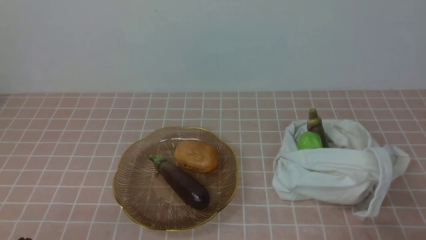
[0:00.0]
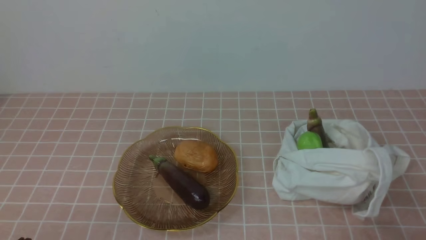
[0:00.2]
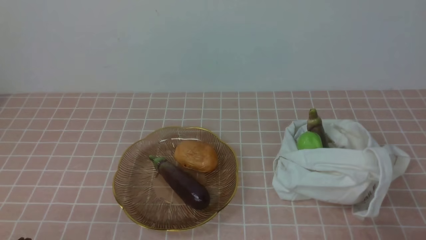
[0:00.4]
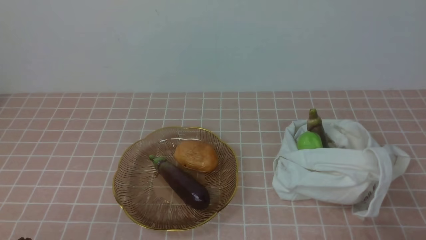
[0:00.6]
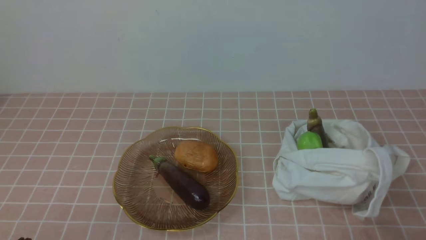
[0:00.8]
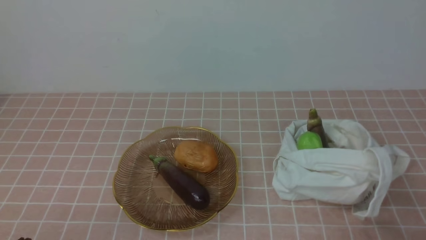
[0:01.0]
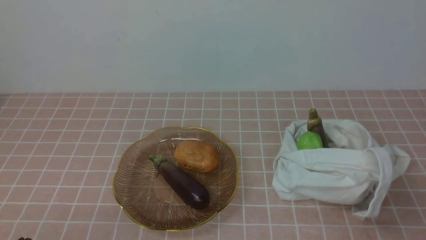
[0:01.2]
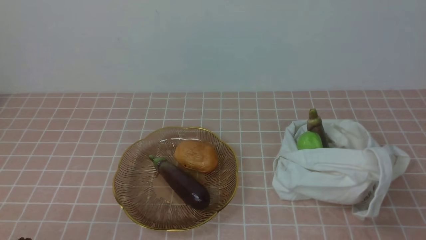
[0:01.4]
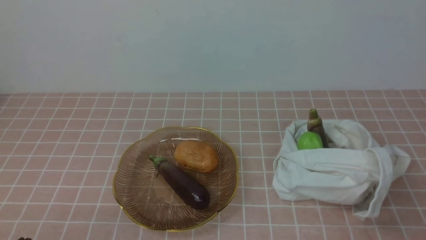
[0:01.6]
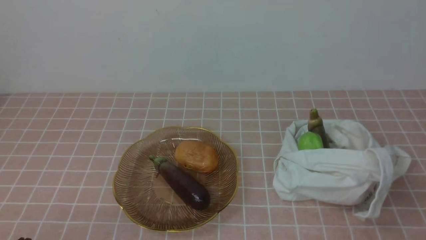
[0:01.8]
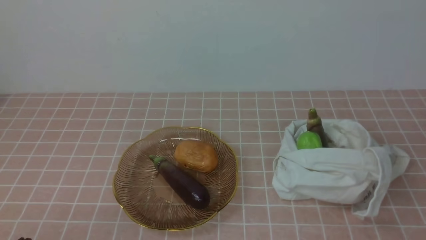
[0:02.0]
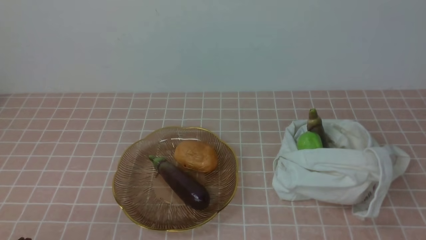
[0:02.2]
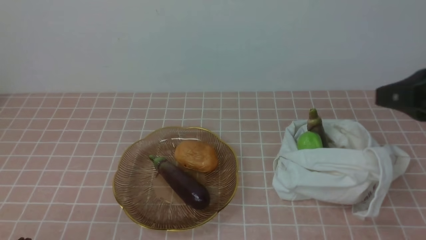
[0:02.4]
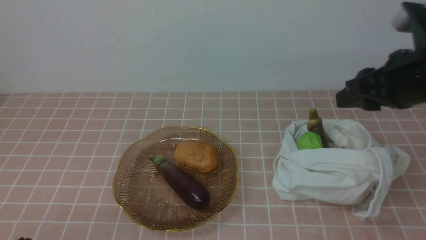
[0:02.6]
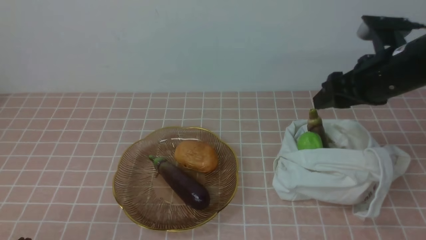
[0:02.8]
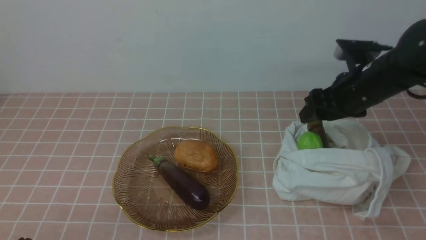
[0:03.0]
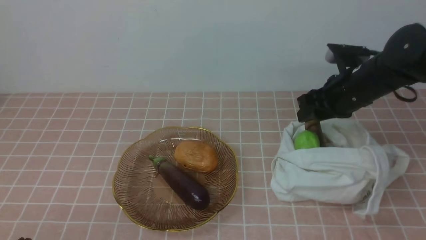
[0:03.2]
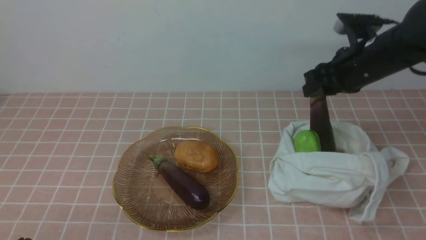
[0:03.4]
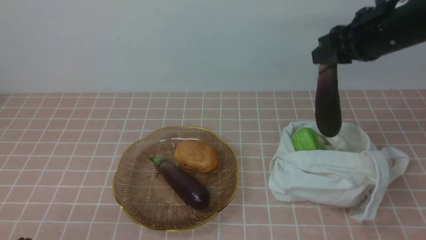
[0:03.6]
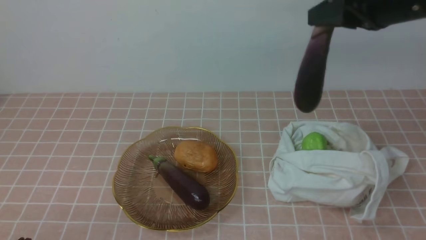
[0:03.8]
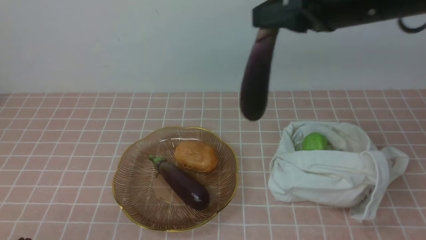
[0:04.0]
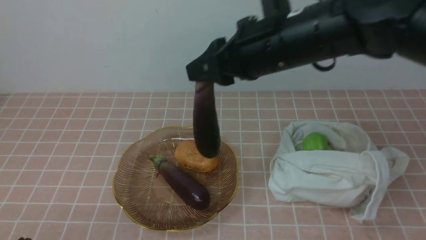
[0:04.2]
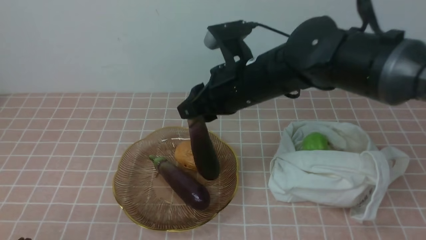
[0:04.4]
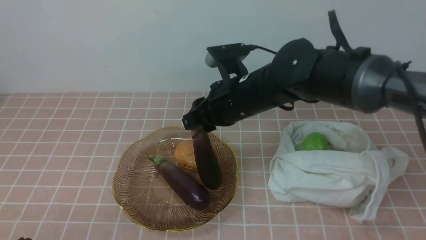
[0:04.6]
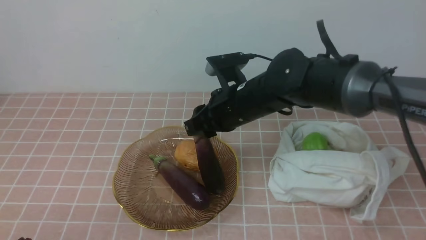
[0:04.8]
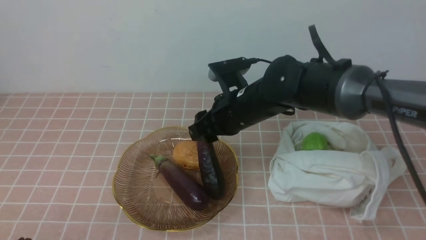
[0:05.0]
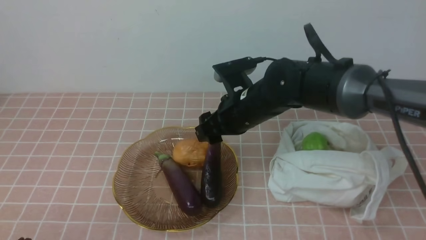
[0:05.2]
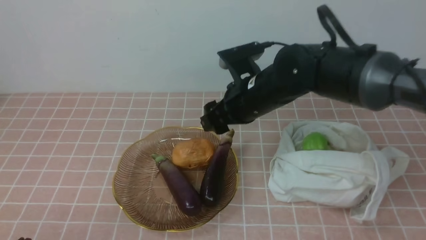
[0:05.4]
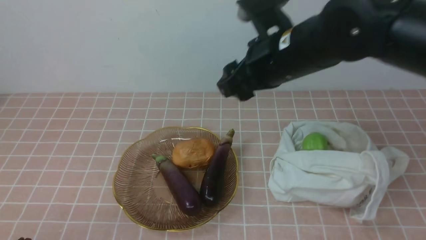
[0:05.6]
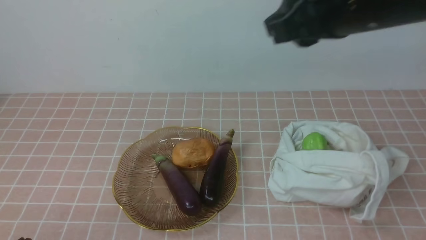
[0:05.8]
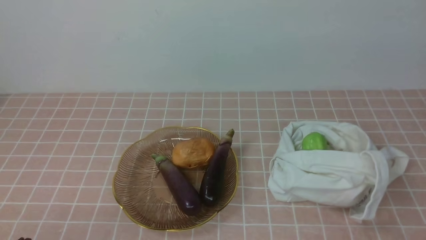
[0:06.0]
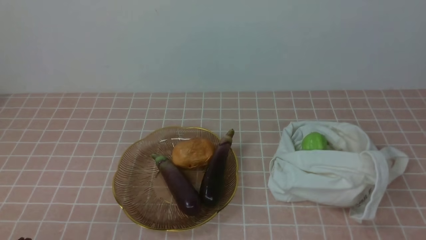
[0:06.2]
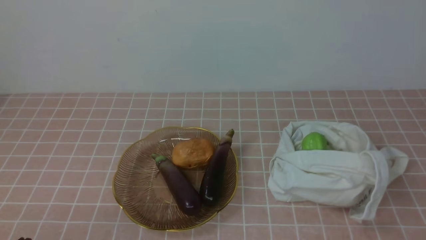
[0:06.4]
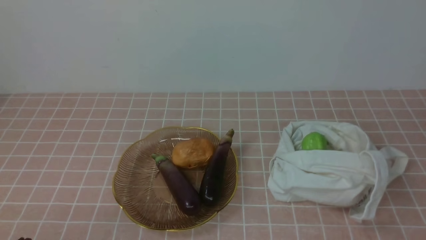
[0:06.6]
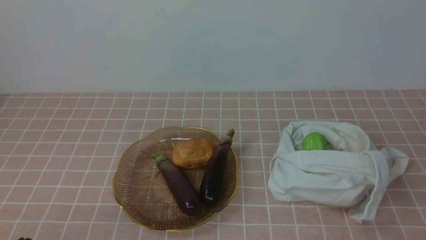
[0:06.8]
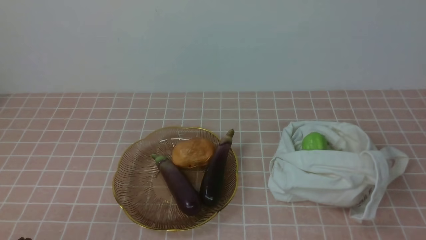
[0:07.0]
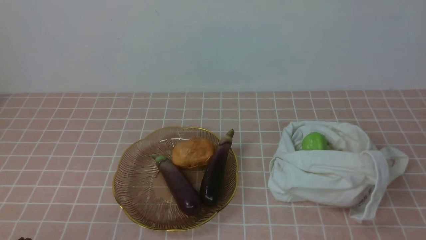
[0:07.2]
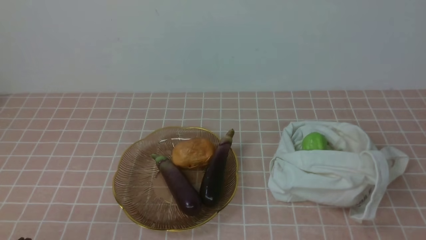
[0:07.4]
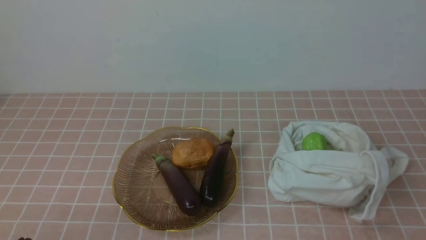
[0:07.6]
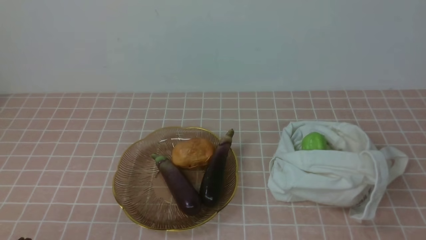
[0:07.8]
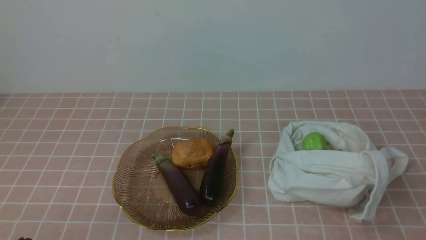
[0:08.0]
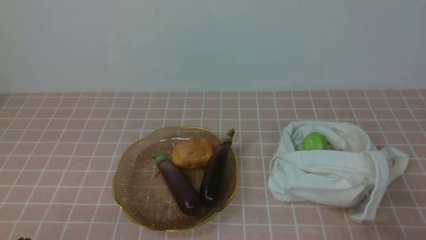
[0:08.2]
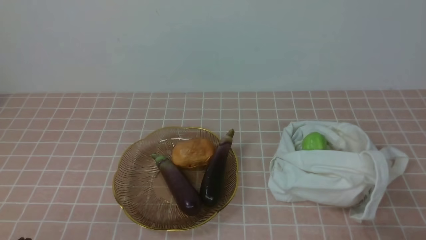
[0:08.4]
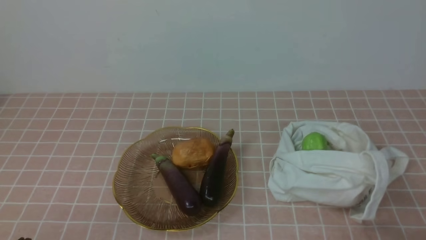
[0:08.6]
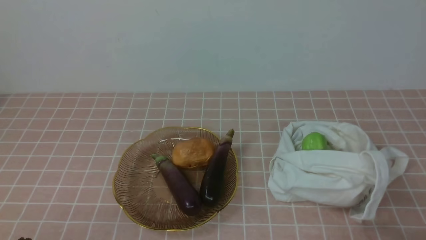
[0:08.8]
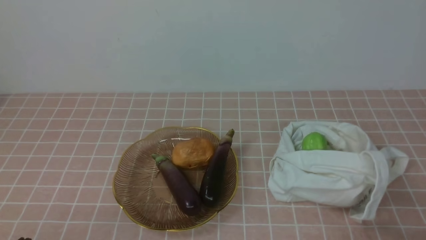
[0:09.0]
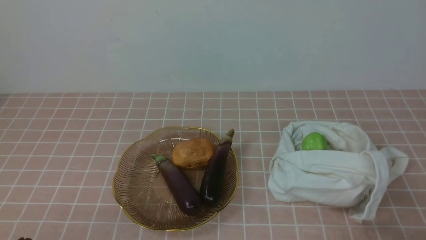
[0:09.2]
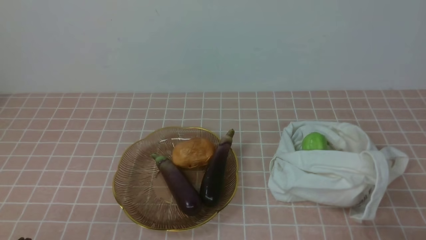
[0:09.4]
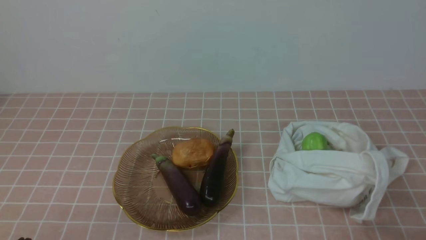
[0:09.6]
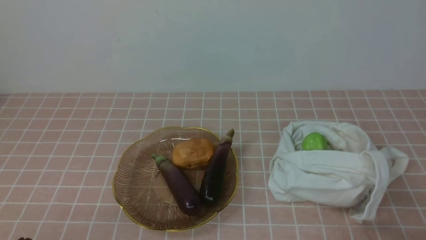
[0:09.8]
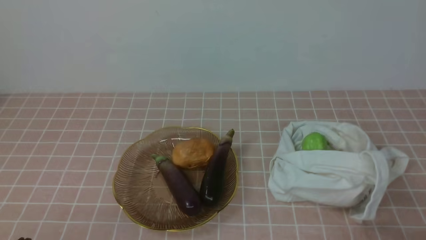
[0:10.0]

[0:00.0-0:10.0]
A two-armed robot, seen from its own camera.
Task of the whole recording: take vegetables from bag on pink coffee tablecloth place on plate.
Step, 0.0 to 3.0 s: Grasp the eggplant with right gripper.
Step, 3.4 to 5.4 s: Place the eggplant on the plate with right gripper.
1.4 to 2.8 s: The right gripper moves forward, about 30 cm, and opens.
2.8 to 4.2 s: The right gripper moves to the left, roughly 15 cm, and closes its fingers.
4.2 to 5.8 s: The right gripper shifts about 15 cm upward, to the right and backward, and opens, then closes once more.
5.8 to 7.2 s: The right gripper shifts roughly 25 cm backward, to the right and downward, and closes.
8.6 to 10.0 s: Both grippers stay put.

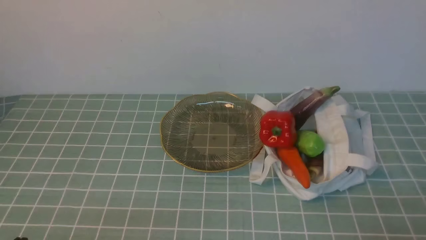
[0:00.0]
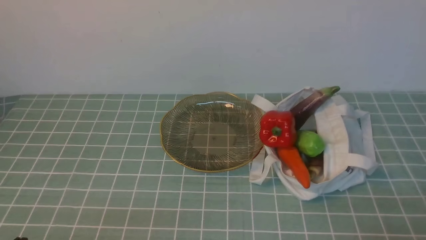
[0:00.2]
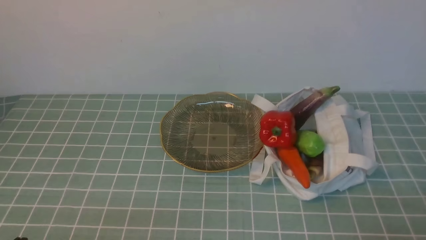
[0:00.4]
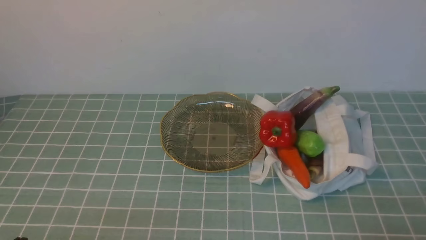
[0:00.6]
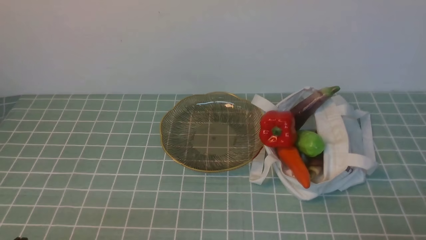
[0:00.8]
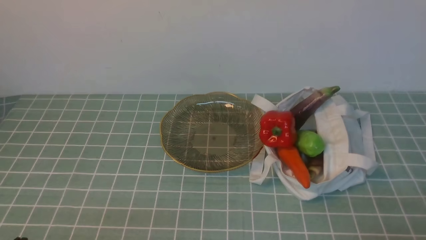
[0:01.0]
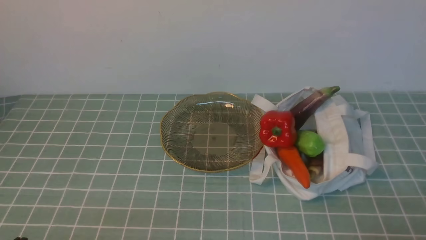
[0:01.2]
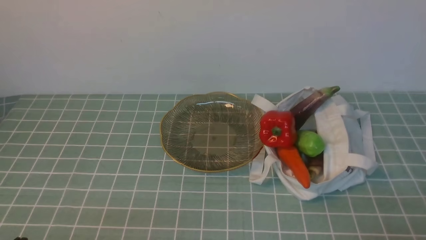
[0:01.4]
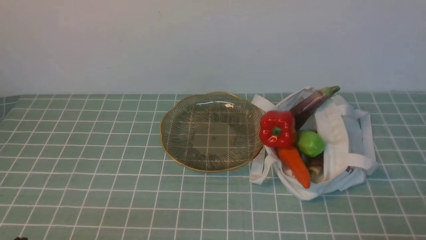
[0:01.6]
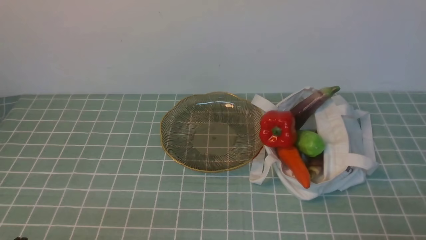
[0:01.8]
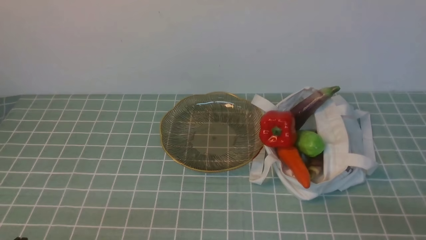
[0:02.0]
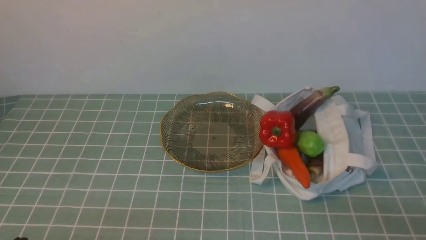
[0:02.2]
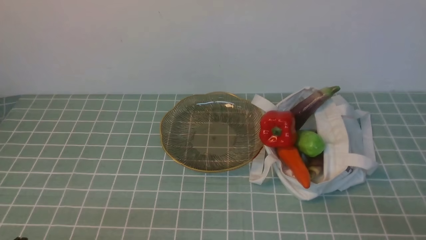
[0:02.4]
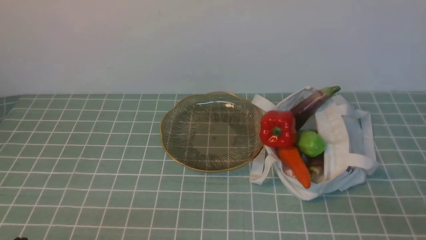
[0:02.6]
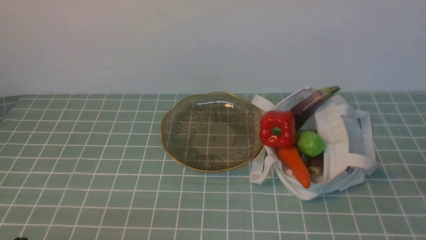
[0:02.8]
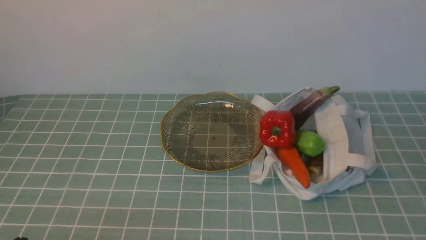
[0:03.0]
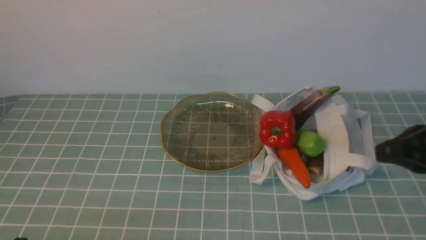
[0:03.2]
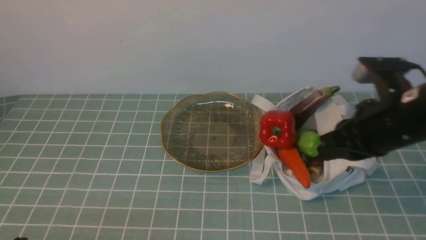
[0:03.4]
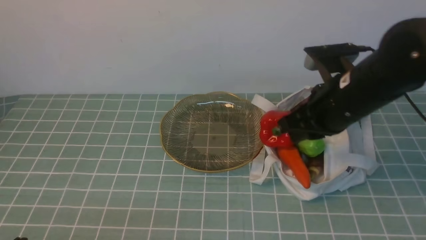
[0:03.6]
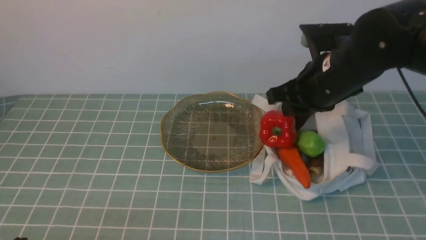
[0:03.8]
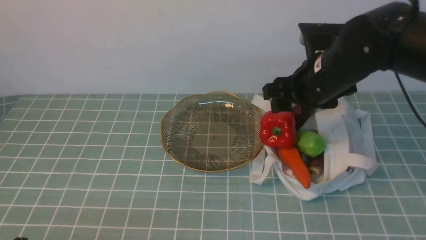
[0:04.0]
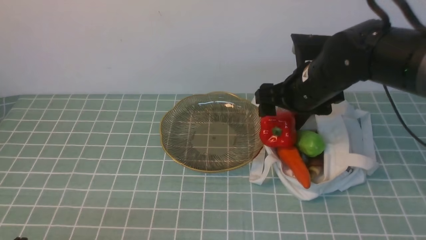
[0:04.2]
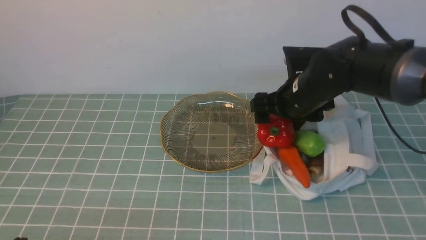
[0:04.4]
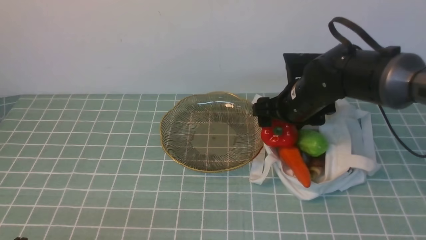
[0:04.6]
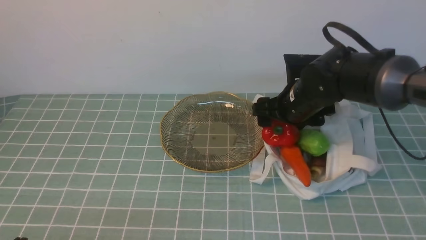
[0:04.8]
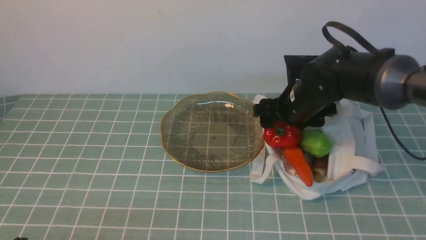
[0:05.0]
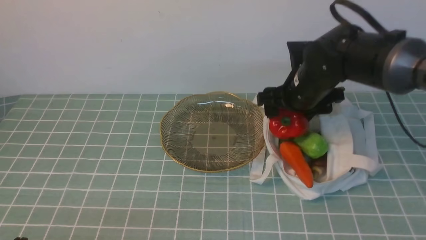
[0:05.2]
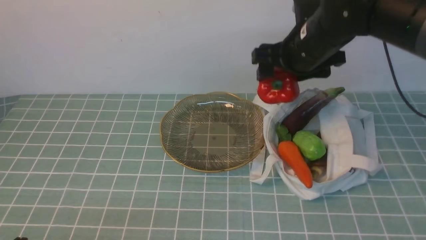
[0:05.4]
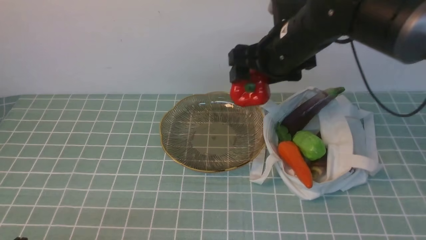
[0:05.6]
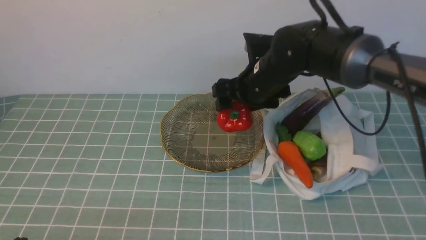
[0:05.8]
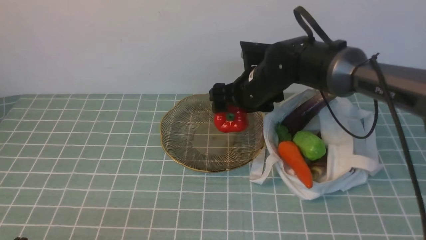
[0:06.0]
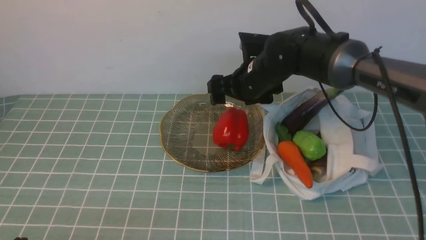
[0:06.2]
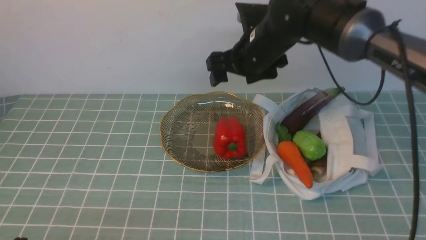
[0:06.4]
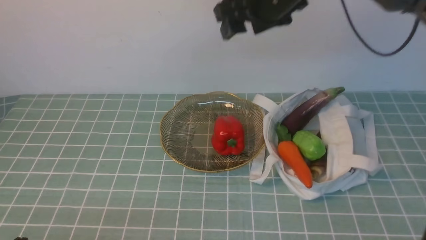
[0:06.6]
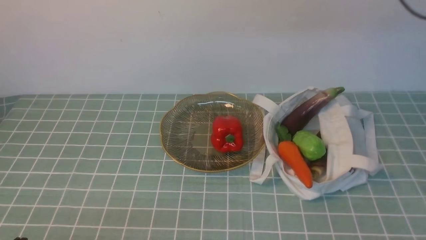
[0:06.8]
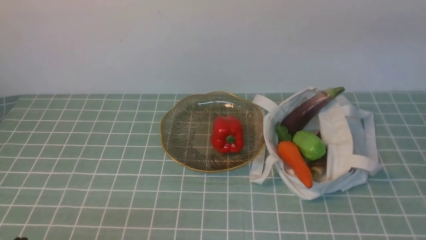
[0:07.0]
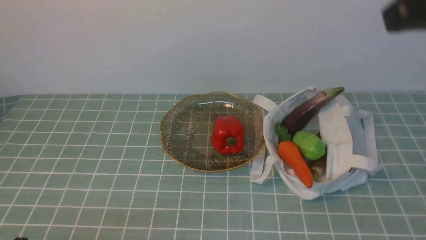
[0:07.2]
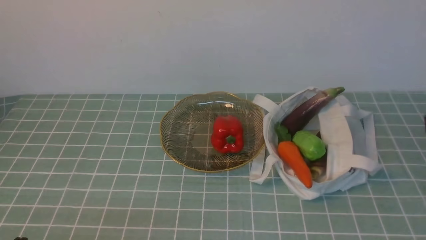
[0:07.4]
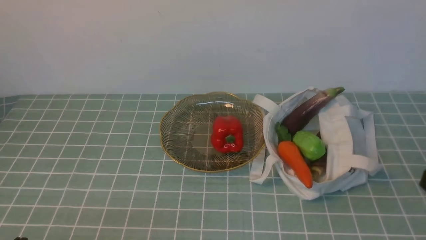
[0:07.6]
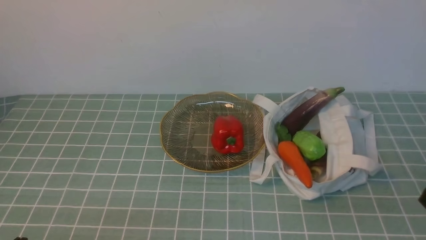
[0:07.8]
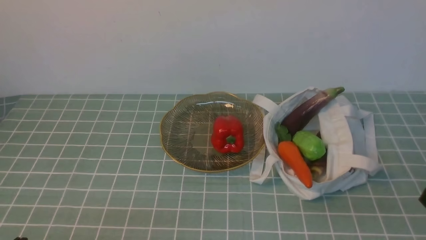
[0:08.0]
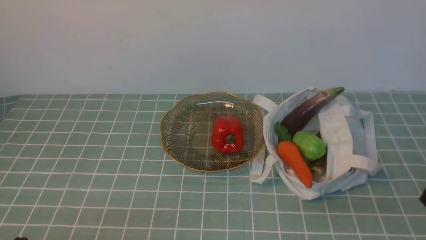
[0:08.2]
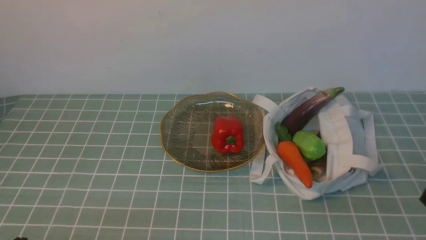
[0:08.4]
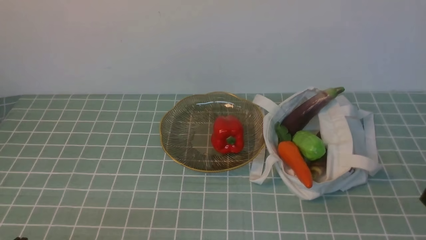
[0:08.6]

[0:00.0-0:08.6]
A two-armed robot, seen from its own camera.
Task of the whole recording: take vegetables from cloth bag on blue coffee tablecloth place on plate.
Step, 0.0 to 4.4 s: Grasp the bell pepper with right gripper.
Step, 4.8 to 6.2 s: Place the bell pepper on the plate with right gripper.
2.8 to 4.4 s: The right gripper is displaced forward and to the left by about 35 cm, and opens up.
4.4 to 5.8 s: The right gripper goes approximately 5 cm to the left.
5.8 to 7.2 s: The right gripper shifts some 30 cm upward, backward and to the right, and closes its fingers.
7.2 to 8.6 s: The right gripper heads downward and backward, covering approximately 25 cm.
